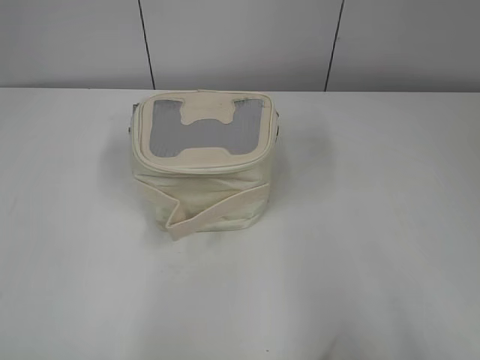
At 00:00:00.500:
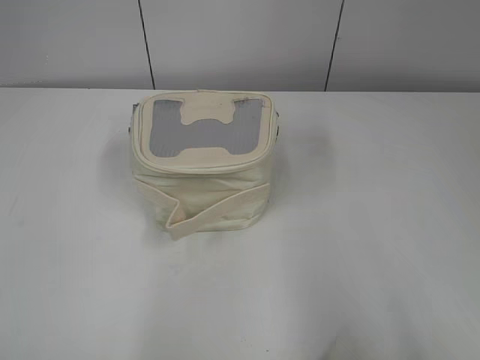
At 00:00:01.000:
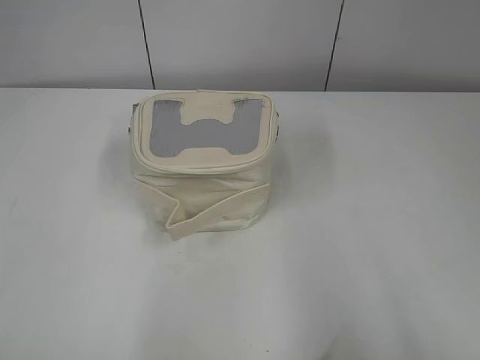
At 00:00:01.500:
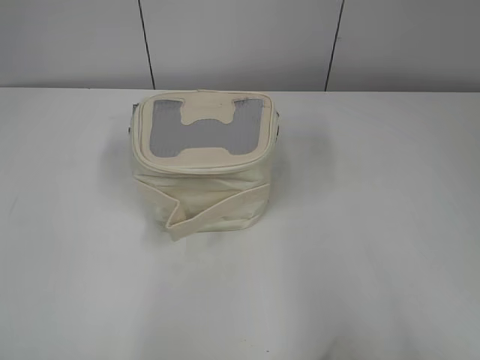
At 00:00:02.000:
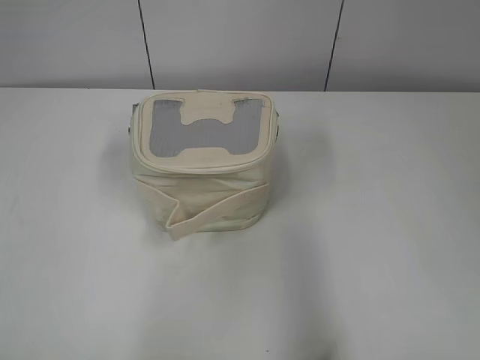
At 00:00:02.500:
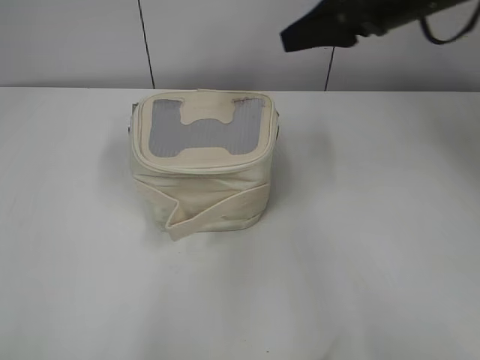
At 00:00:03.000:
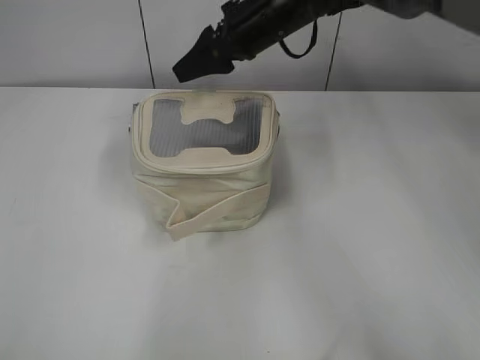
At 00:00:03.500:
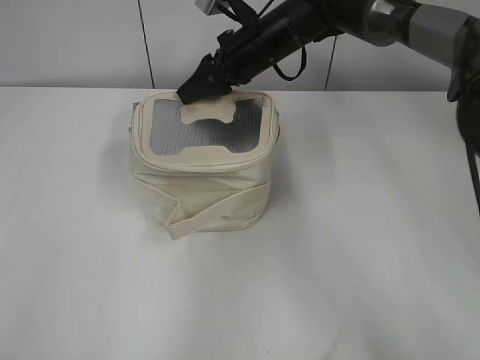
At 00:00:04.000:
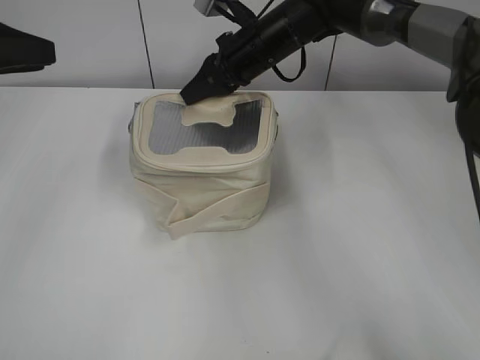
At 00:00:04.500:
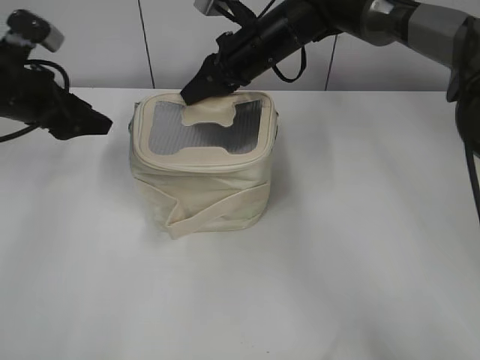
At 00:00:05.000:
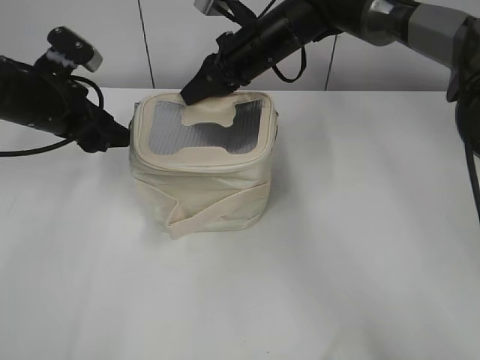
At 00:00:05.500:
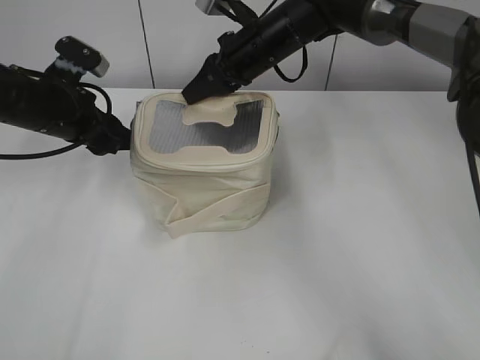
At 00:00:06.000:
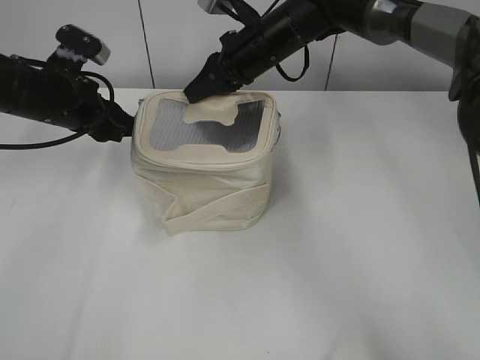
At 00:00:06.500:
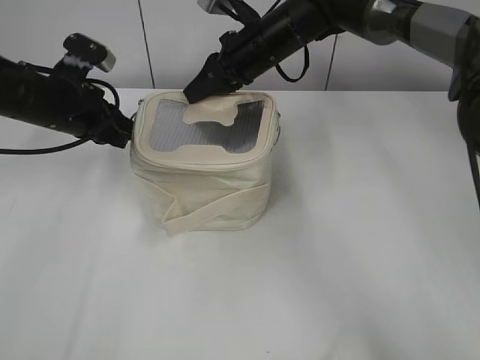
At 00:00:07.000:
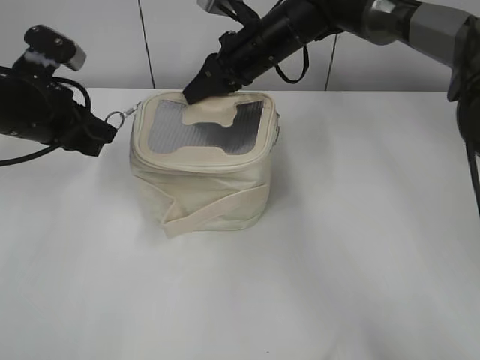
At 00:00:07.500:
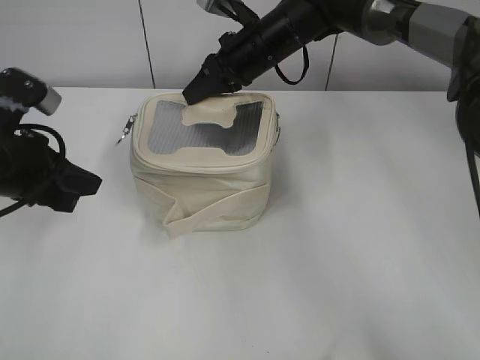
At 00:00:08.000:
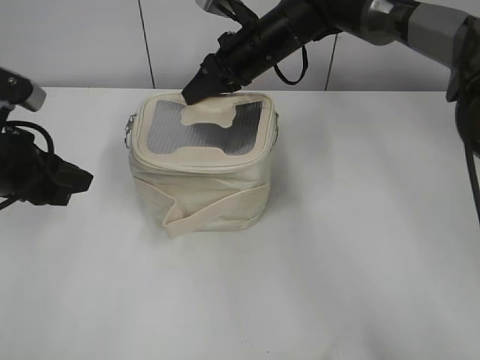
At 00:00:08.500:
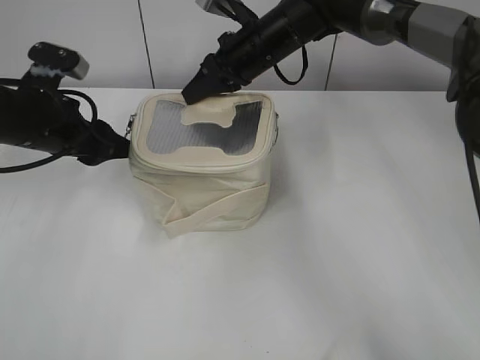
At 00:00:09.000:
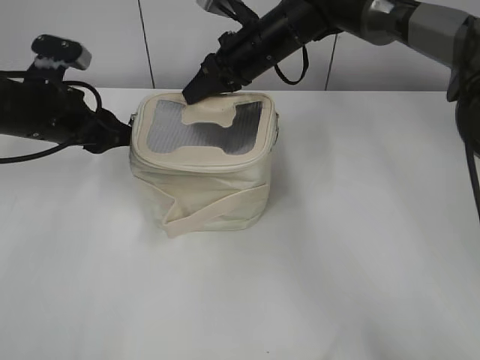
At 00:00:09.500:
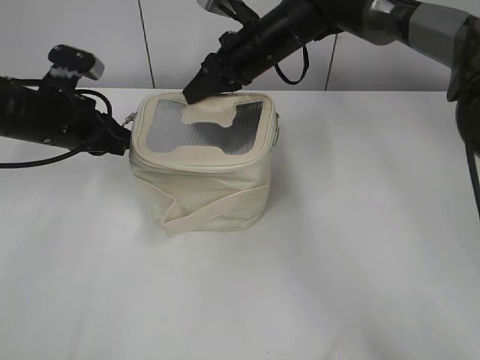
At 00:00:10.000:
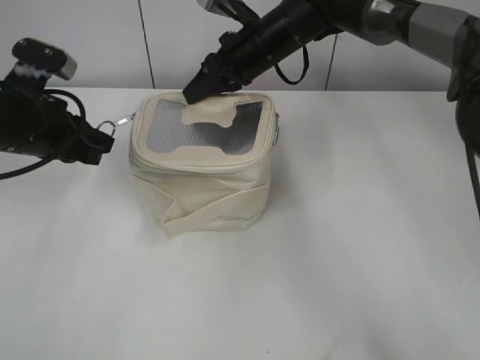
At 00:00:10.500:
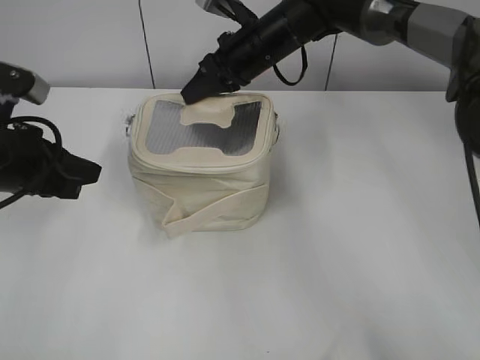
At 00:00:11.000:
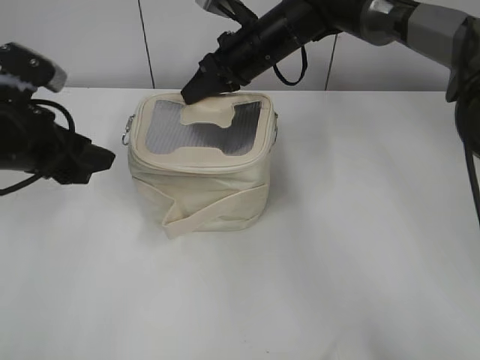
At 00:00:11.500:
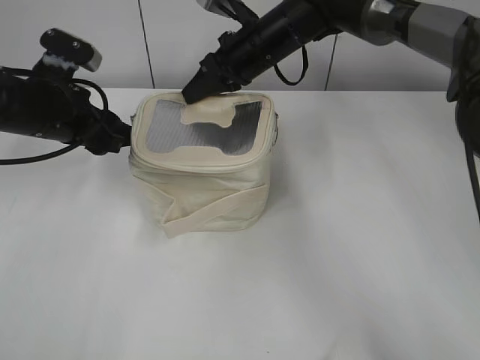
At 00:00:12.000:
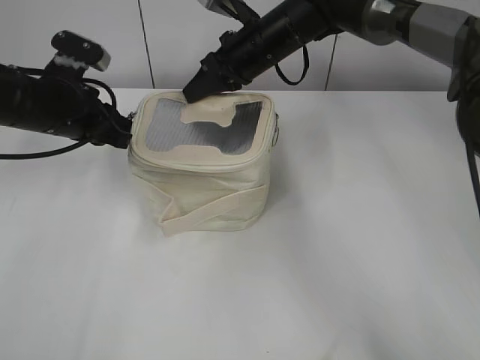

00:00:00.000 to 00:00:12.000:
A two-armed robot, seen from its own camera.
00:00:02.000 to 00:00:04.000: The right gripper goes some 40 cm forward and to the left, and closes; the left gripper is displaced forward by approximately 30 cm.
00:00:04.000 to 00:00:06.000: The left gripper is displaced downward, forward and to the right by some 15 cm.
00:00:06.000 to 00:00:08.000: The left gripper travels backward by approximately 10 cm, and closes, then opens again.
00:00:08.000 to 00:00:10.000: The left gripper shifts approximately 5 cm forward, and closes up.
00:00:10.000 to 00:00:12.000: The left gripper ends up approximately 5 cm from where it was, and opens, then closes again.

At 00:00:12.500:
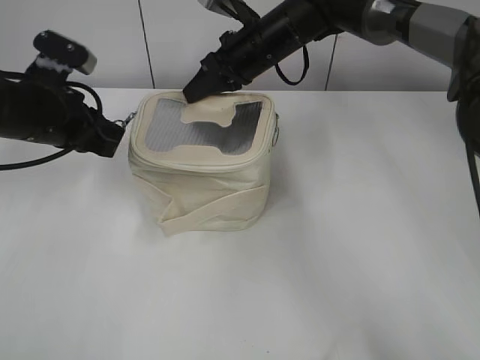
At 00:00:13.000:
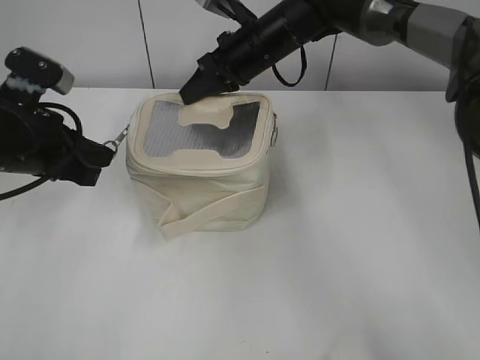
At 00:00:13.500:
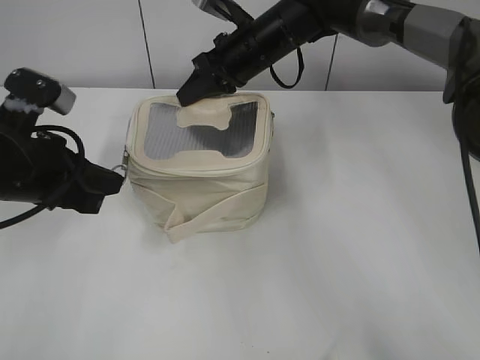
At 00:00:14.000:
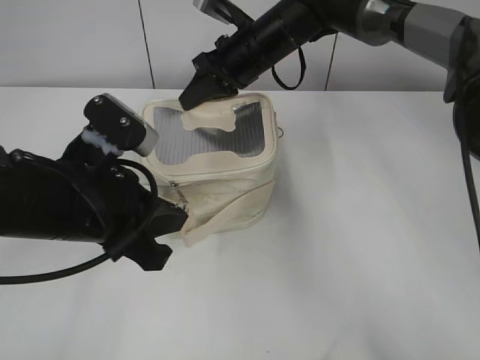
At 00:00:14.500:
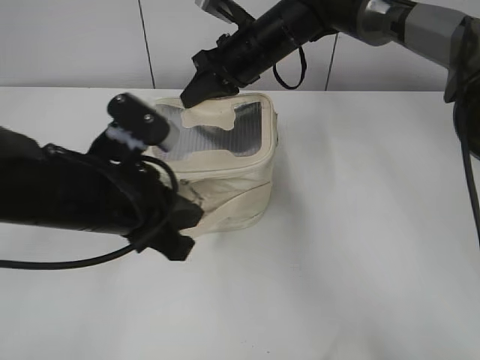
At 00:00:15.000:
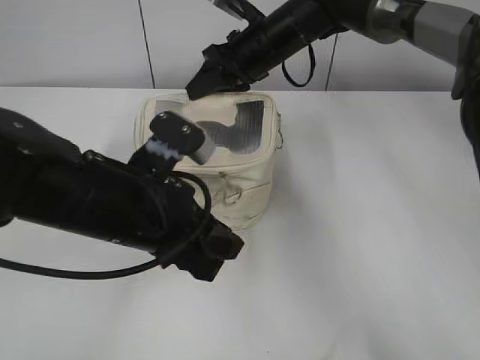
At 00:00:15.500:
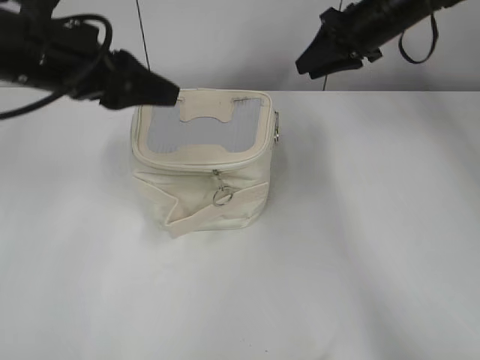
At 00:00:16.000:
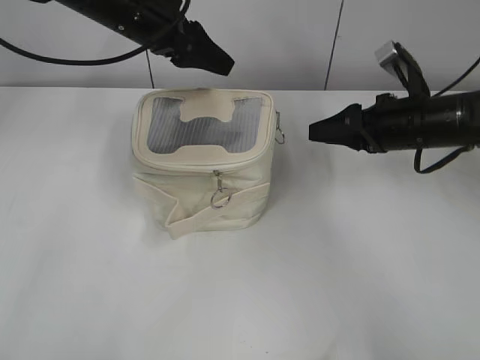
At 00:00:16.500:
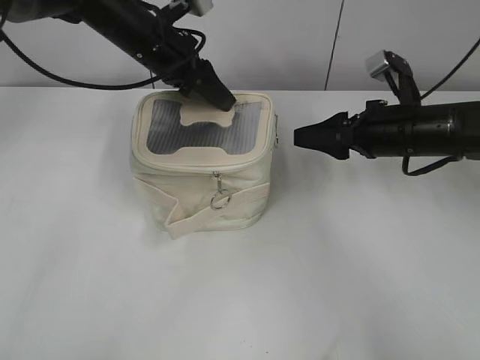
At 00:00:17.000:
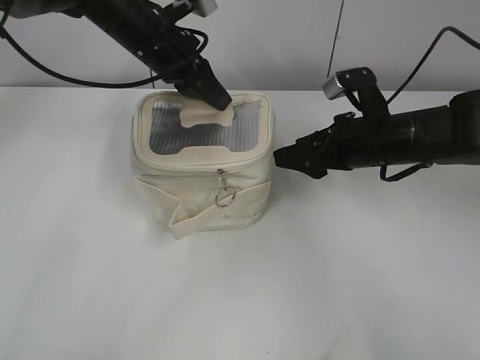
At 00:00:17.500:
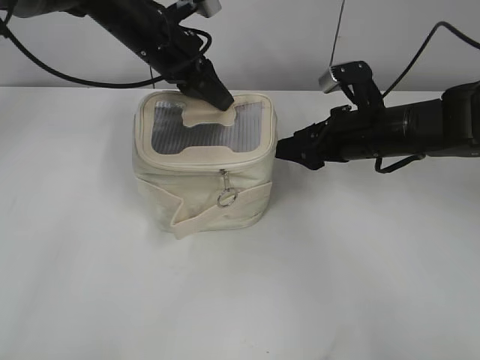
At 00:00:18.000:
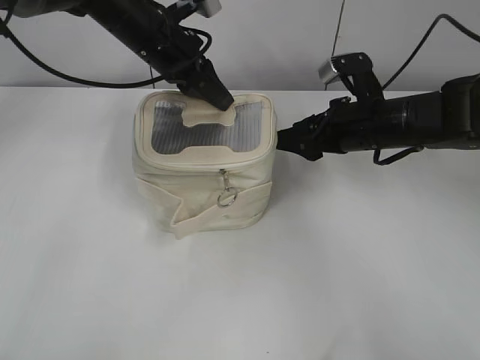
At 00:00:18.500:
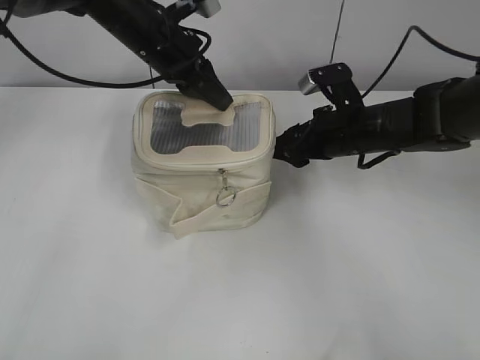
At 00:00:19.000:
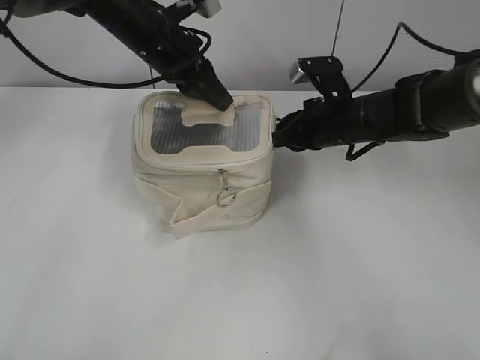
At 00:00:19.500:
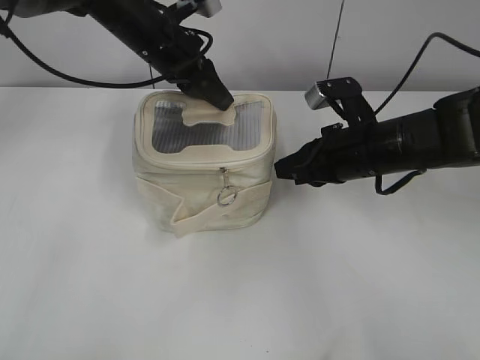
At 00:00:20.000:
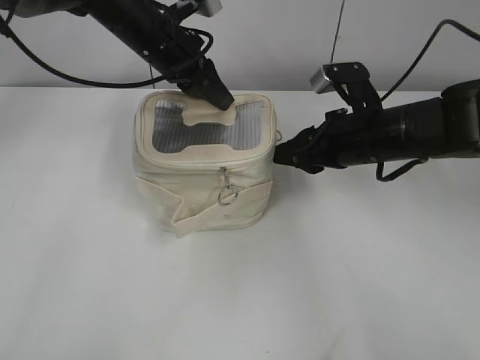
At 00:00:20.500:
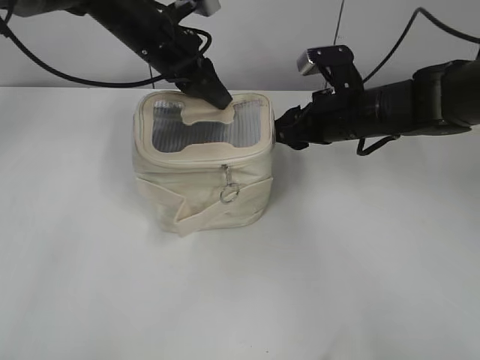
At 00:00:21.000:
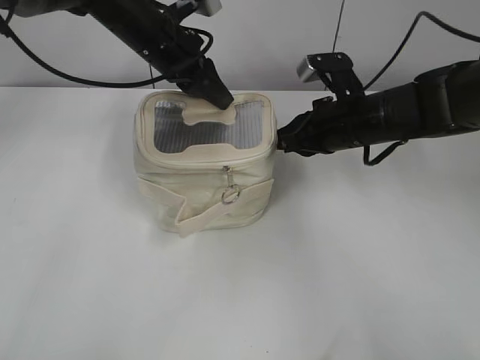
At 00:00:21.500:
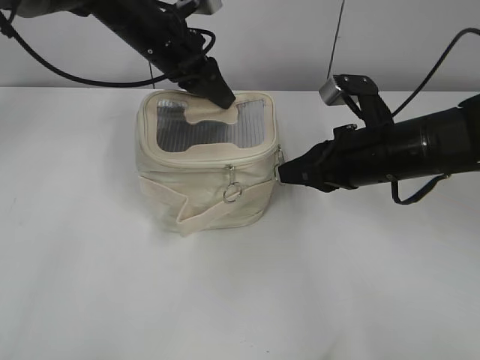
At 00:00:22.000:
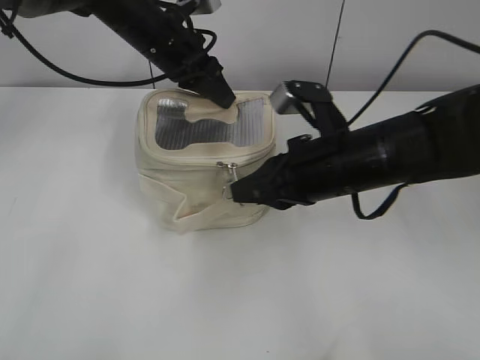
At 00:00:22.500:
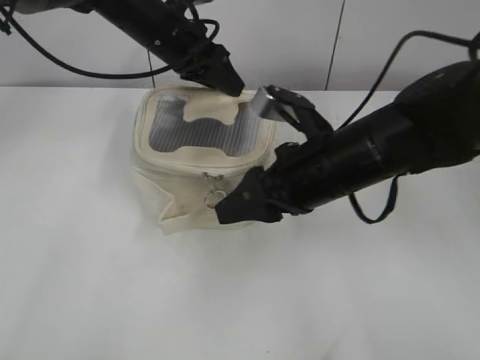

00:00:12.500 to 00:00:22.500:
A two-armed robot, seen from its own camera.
Step, 00:00:12.500 to 00:00:14.500: Pull open the zipper with your left hand.
Step, 00:00:15.500 to 00:00:22.000: Pull open the zipper with your right hand.
00:00:12.500 to 00:00:14.500: The left gripper heads backward and to the right, covering approximately 15 cm.
00:00:14.500 to 00:00:16.500: The right gripper shifts about 20 cm to the right and backward, and opens its fingers. Meanwhile the left gripper heads forward, covering approximately 25 cm, and opens.
00:00:16.500 to 00:00:18.500: The left gripper closes. Meanwhile the right gripper moves to the left, about 5 cm.
00:00:18.500 to 00:00:20.500: The right gripper closes, then opens again.
00:00:20.500 to 00:00:22.500: The right gripper shifts some 10 cm backward, and closes, then reopens. The left gripper opens up.

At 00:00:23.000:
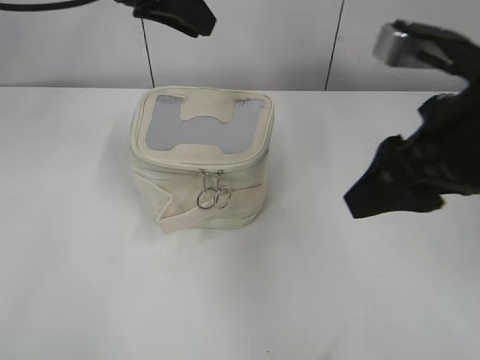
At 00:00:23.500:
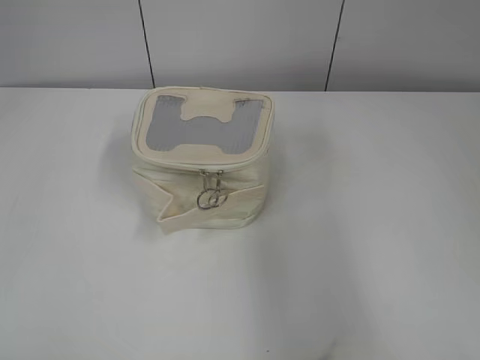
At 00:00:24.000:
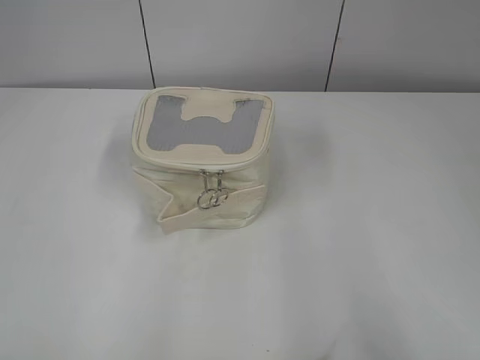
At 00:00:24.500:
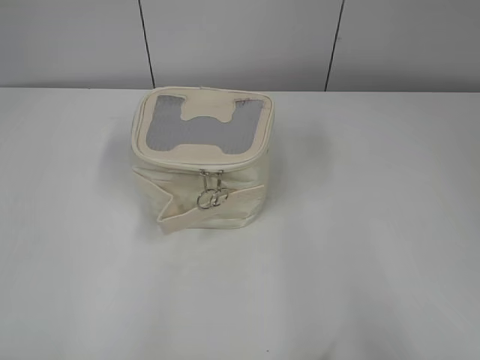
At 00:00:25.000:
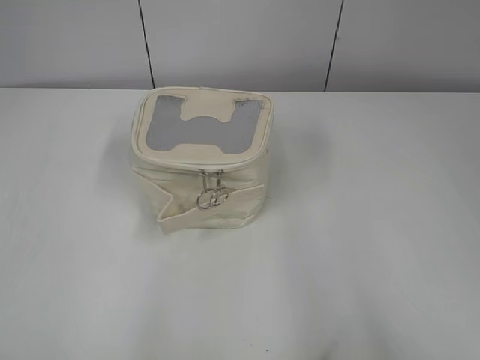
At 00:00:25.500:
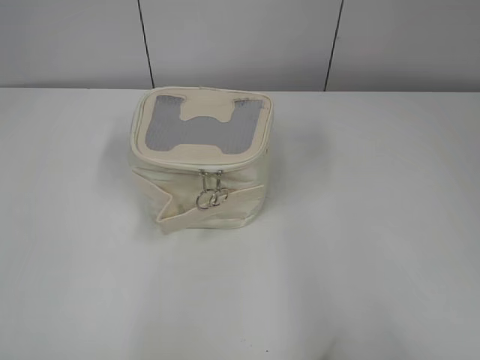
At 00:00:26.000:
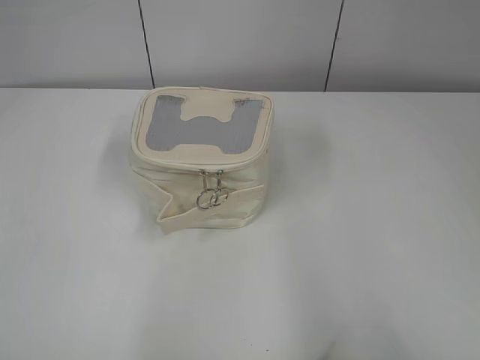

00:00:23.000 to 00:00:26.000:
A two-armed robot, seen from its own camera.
00:00:23.000 to 00:00:24.500: The left gripper is displaced backward and to the left by about 40 cm, and opens its fingers, while the right gripper shifts some 25 cm backward and to the right.
